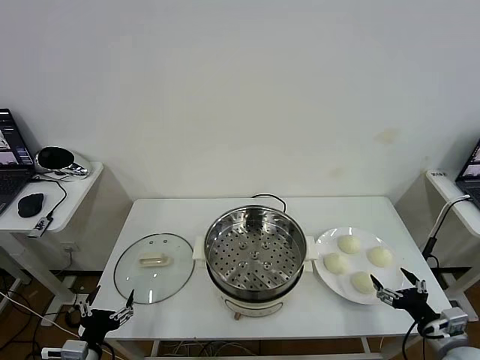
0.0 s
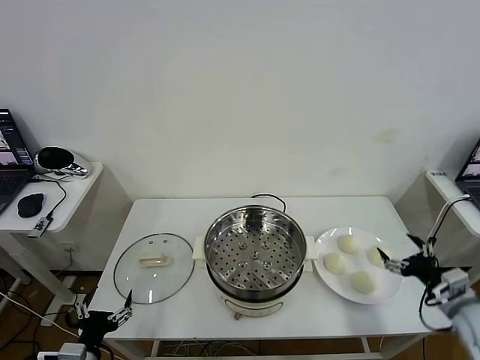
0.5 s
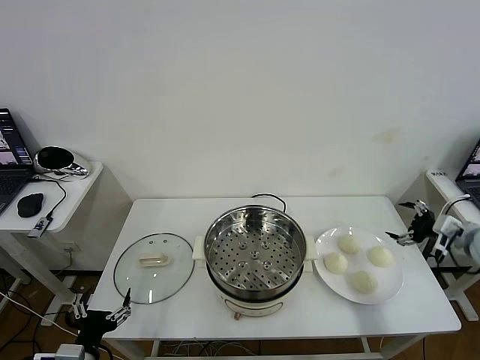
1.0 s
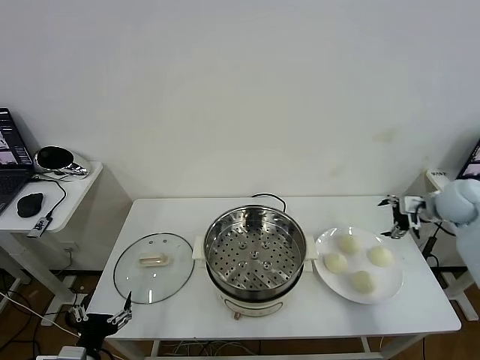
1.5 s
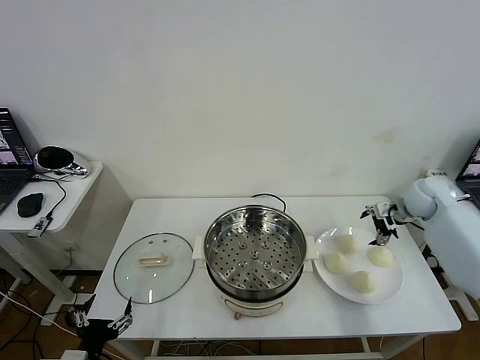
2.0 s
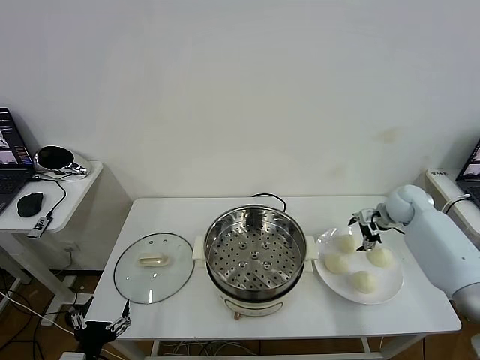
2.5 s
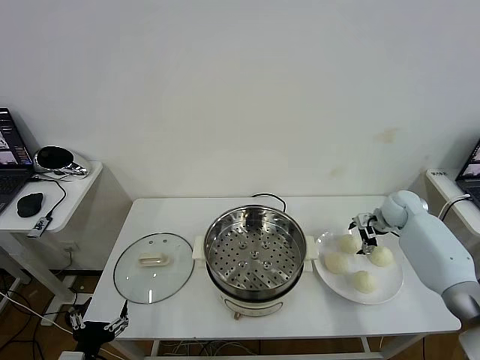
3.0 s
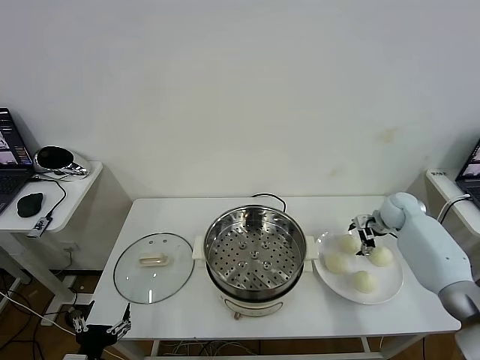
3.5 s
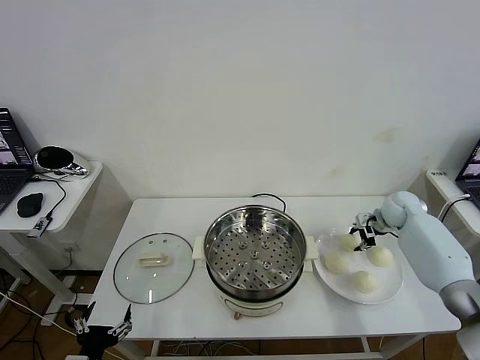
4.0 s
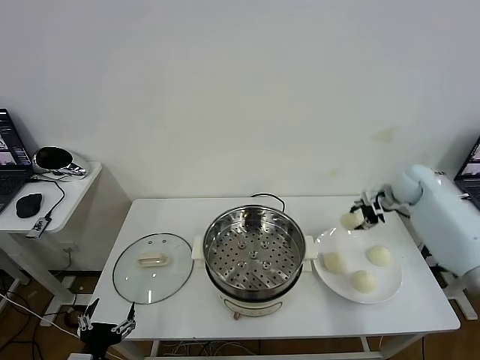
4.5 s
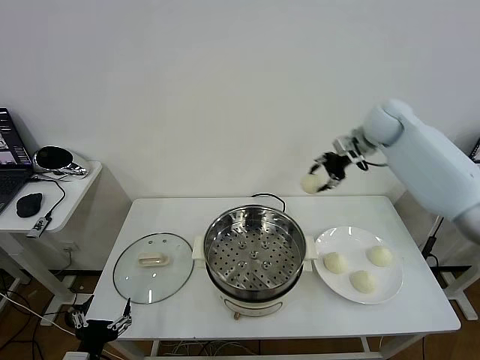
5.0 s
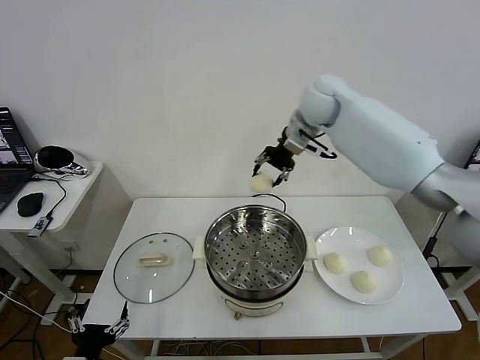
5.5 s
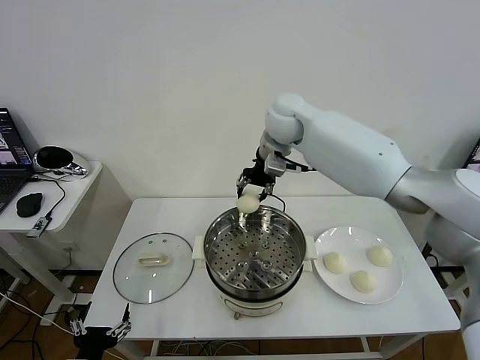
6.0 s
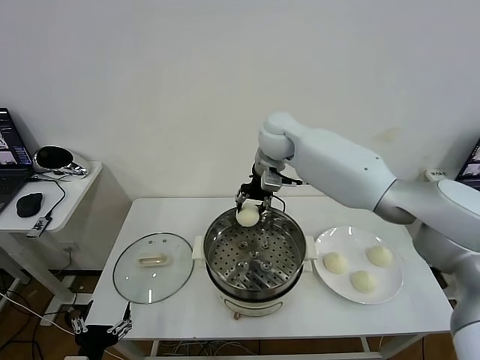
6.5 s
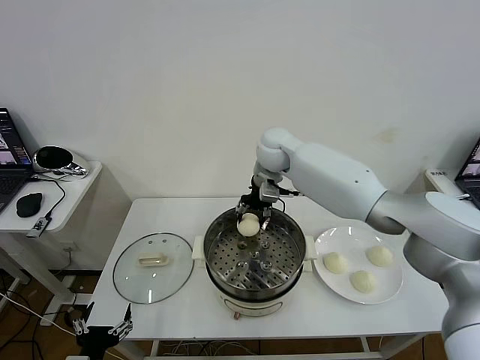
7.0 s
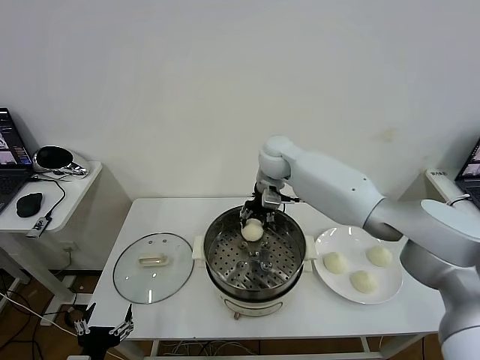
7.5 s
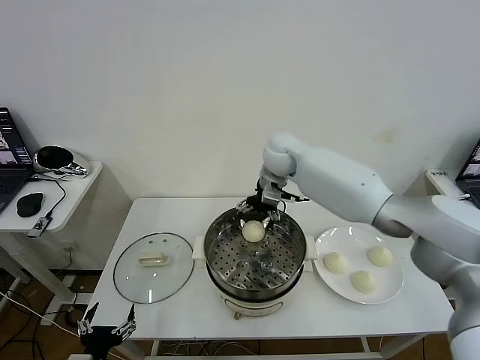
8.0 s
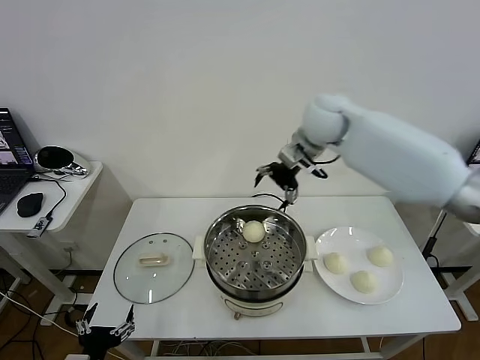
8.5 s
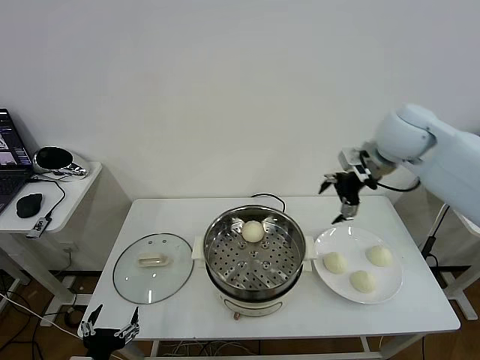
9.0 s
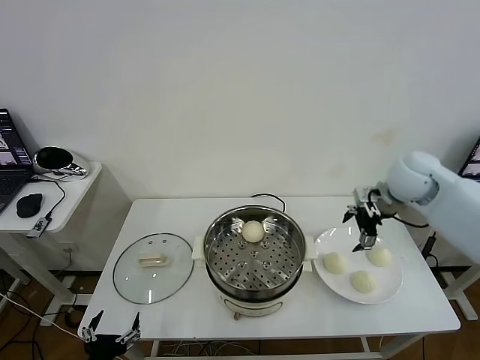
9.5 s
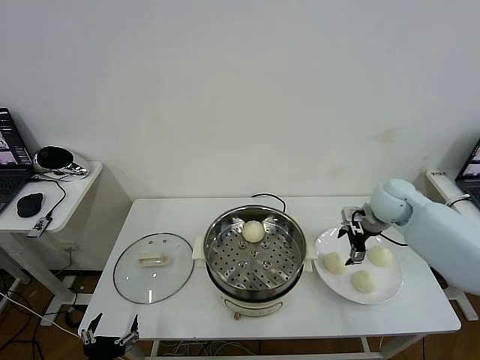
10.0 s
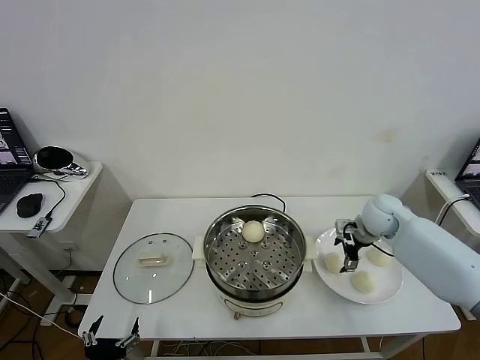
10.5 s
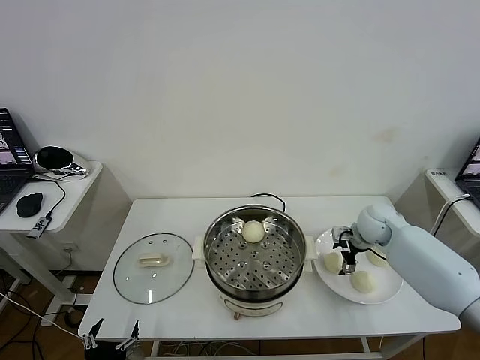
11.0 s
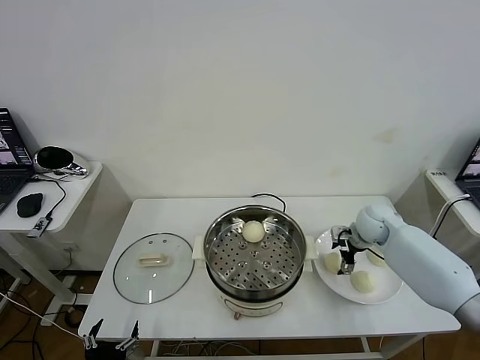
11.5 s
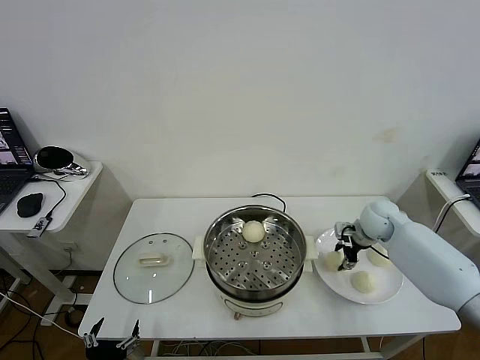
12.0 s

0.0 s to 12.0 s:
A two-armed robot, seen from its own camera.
Task of the whole recording: take steamed baozi put them in steamer then cover it.
Step, 0.0 to 3.5 s: Grasp the baozi in the plate with right gripper.
Step, 4.0 to 7.5 s: Place the baozi on the steamer with right gripper.
Step, 8.0 to 11.5 s: Grasp the baozi in the plate with right gripper.
2.0 to 4.0 s: The right gripper moves downward, some 5 cm, and closes its fingers.
4.0 to 6.0 s: The right gripper shifts roughly 40 cm to the left and upward.
6.0 to 8.0 s: The right gripper is displaced downward by roughly 5 cm, and opens.
8.0 to 10.0 s: The right gripper is displaced to the right by some 25 cm.
10.0 to 12.0 s: The right gripper shifts approximately 5 cm downward, and closes.

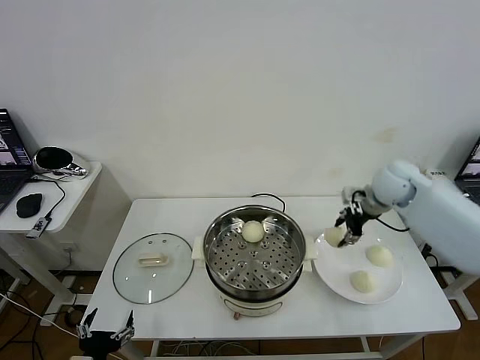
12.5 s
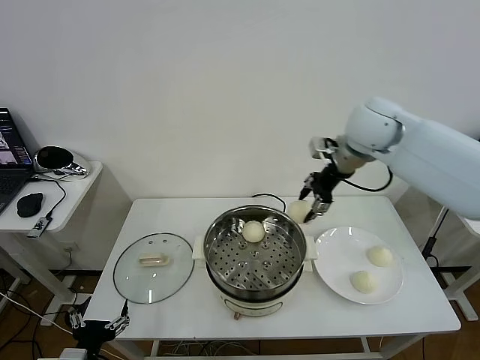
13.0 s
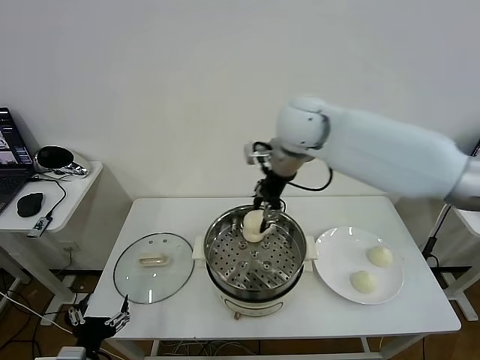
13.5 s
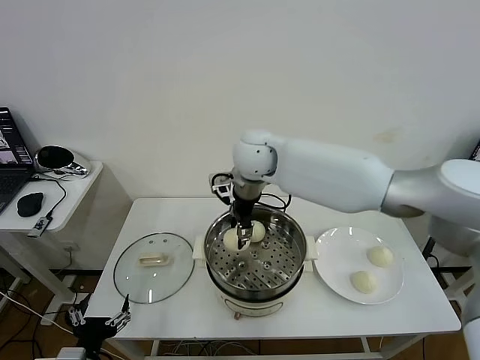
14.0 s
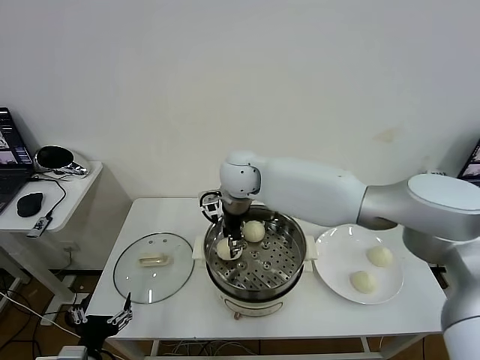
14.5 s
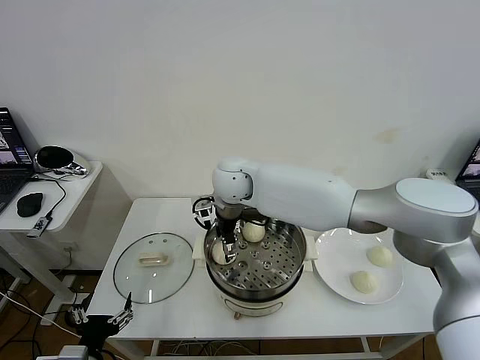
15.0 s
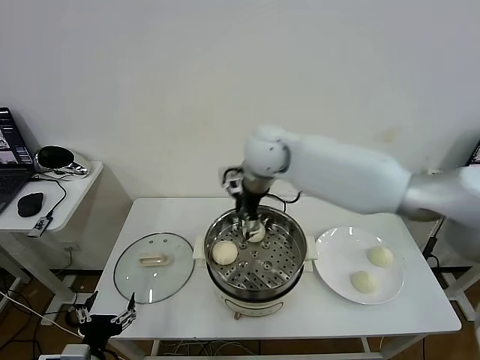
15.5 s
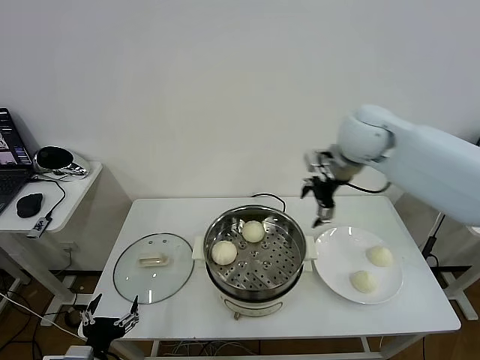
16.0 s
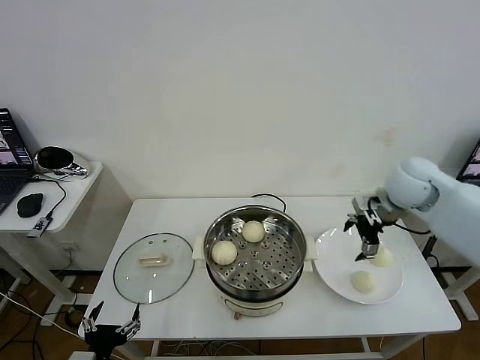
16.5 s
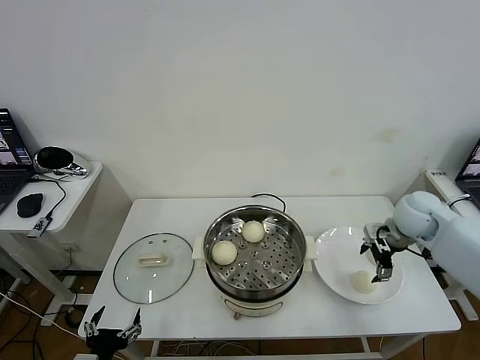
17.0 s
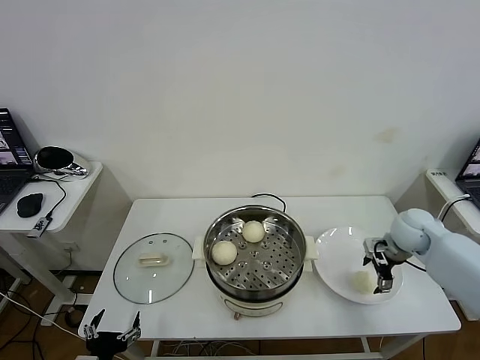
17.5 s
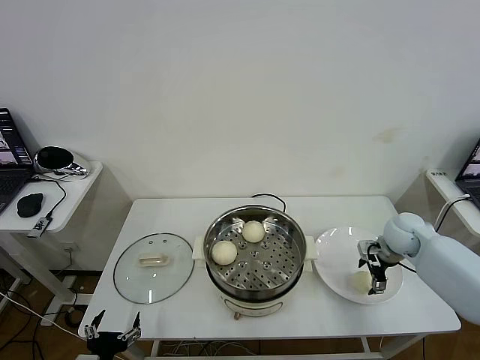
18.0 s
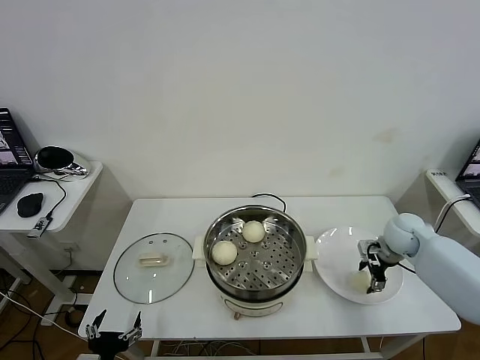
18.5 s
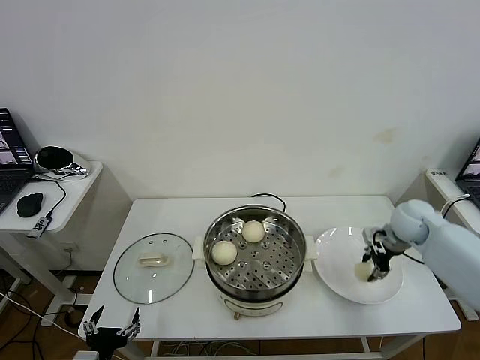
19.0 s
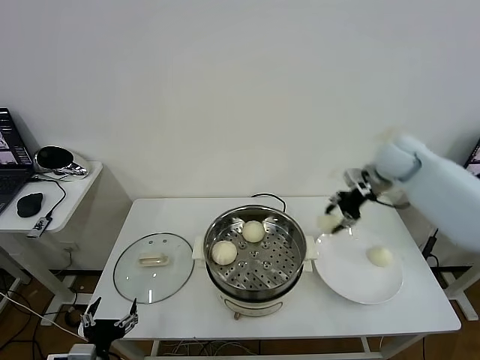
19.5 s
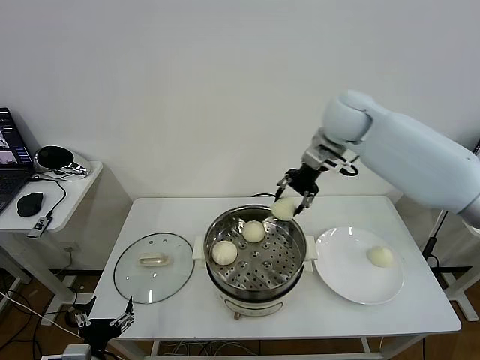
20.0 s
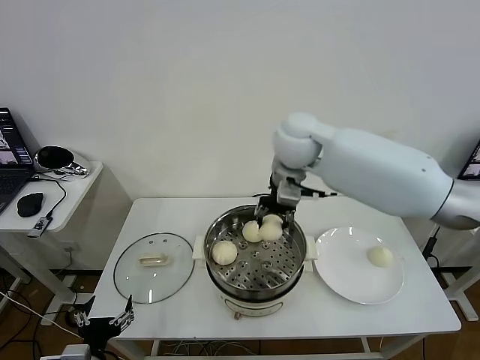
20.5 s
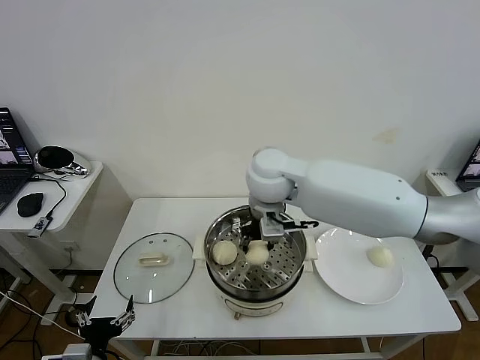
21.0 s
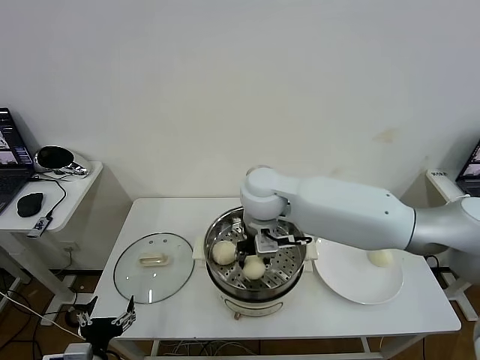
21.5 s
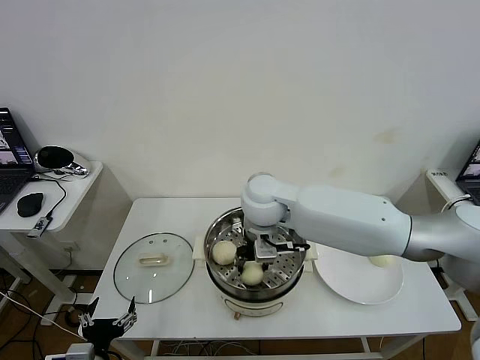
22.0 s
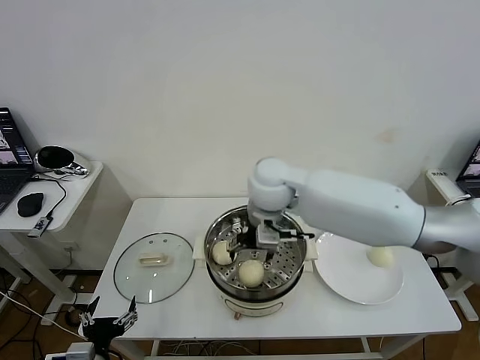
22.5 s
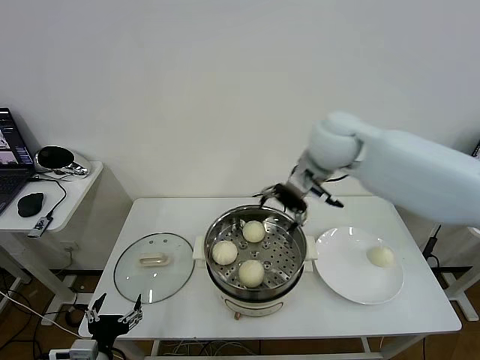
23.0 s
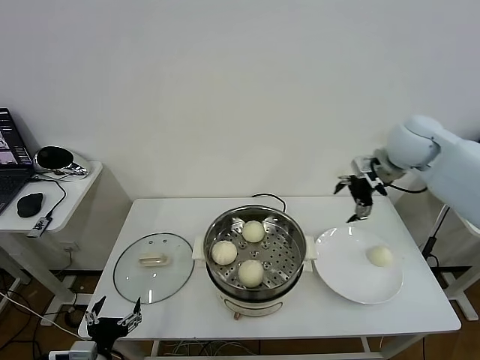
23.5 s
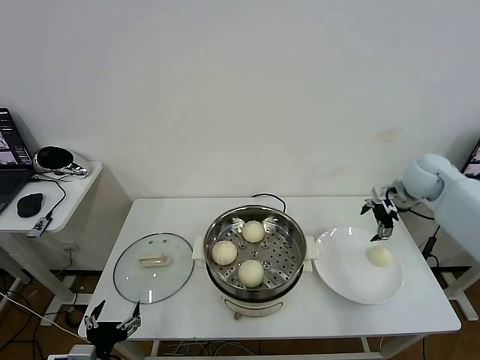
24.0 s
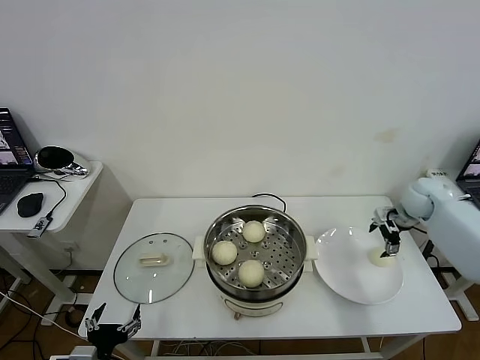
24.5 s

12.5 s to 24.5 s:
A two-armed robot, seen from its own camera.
Task of the whole recording: take steamed baozi put them in steamer then cover it.
Step, 12.5 to 15.0 s: Place the baozi on the steamer with right gripper.
Step, 15.5 to 18.5 s: Grasp the baozi in the plate with right gripper.
Step, 19.0 to 22.5 s: Place the baozi on the steamer with right gripper.
12.5 to 14.5 s: The right gripper heads to the left, covering some 35 cm.
14.5 to 16.5 s: The right gripper is displaced to the right by roughly 35 cm, and opens its fingers.
16.5 to 18.5 s: The right gripper moves downward, about 15 cm, and closes its fingers.
18.5 to 20.5 s: The right gripper shifts some 40 cm to the left and upward, and closes its fingers.
20.5 to 22.5 s: The right gripper opens its fingers.
22.5 to 24.5 s: The right gripper heads to the right, covering roughly 40 cm.

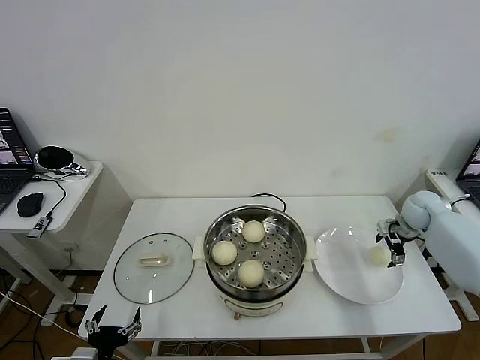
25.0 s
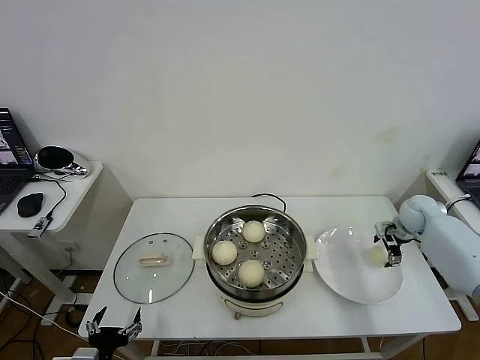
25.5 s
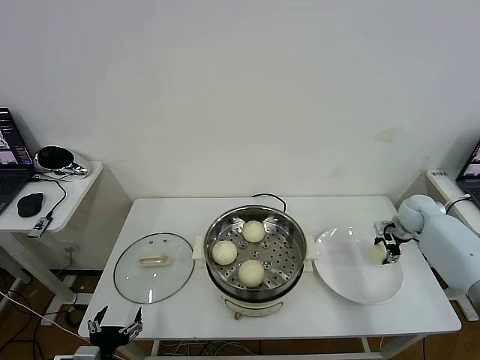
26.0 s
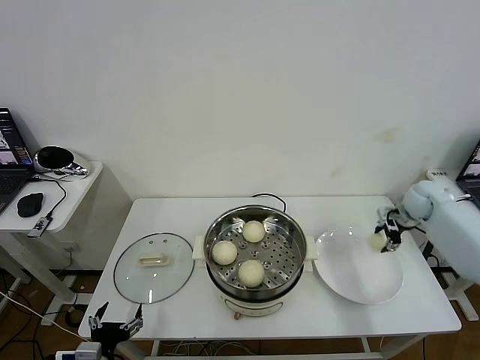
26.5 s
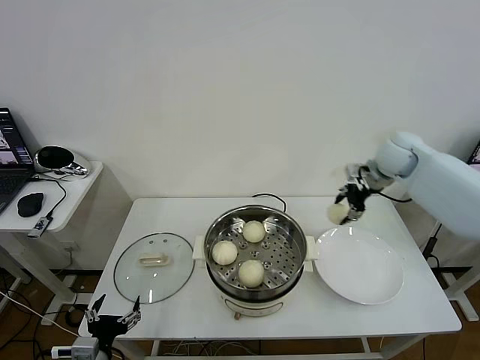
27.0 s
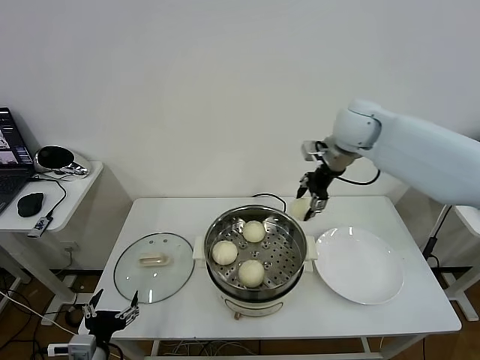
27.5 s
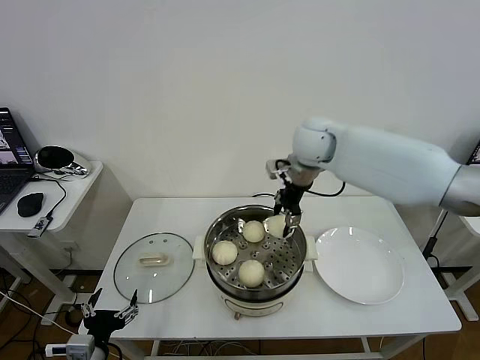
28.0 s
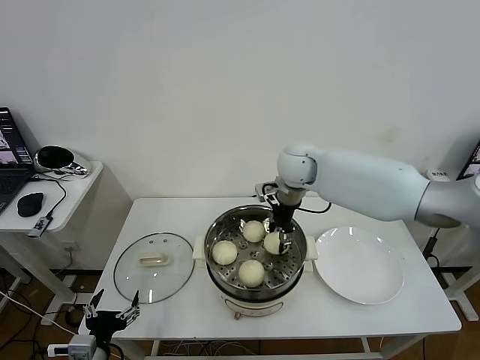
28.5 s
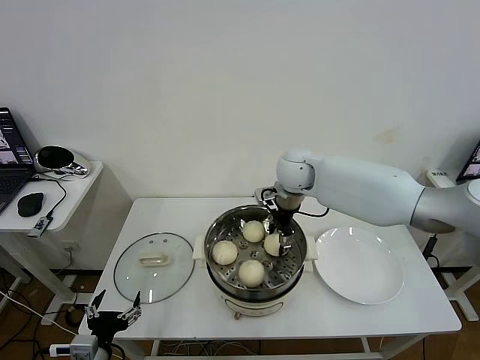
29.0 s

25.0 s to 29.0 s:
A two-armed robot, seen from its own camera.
Task of the whole recording: take steamed baozi put them in steamer then cover it.
25.0 to 27.0 s: The right gripper travels upward and to the left by roughly 20 cm, and closes.
27.0 to 29.0 s: The right gripper heads to the left, covering some 25 cm.
